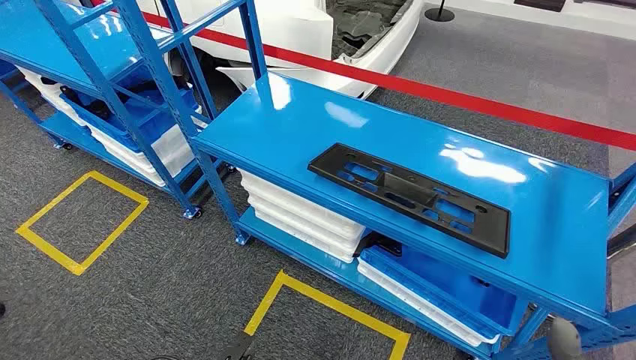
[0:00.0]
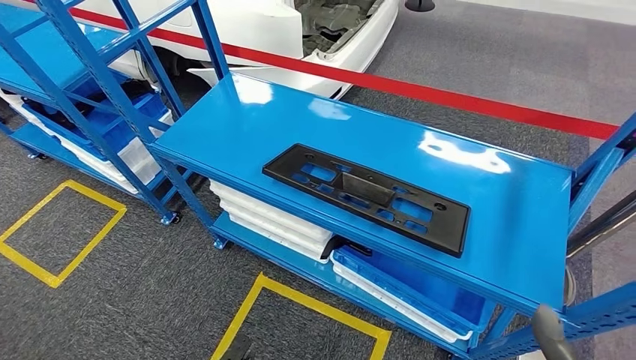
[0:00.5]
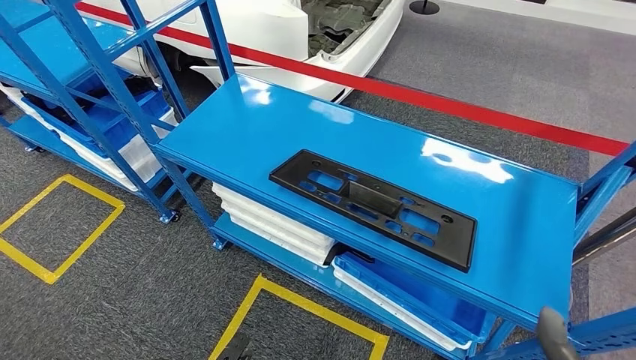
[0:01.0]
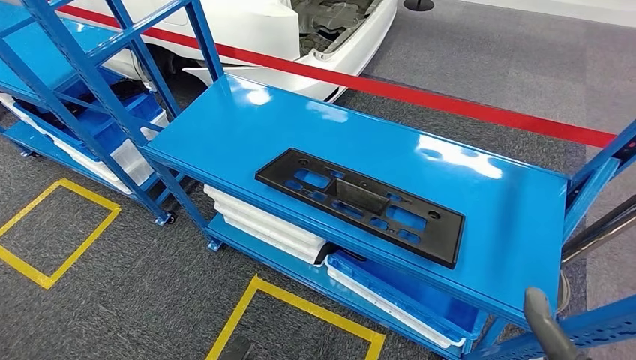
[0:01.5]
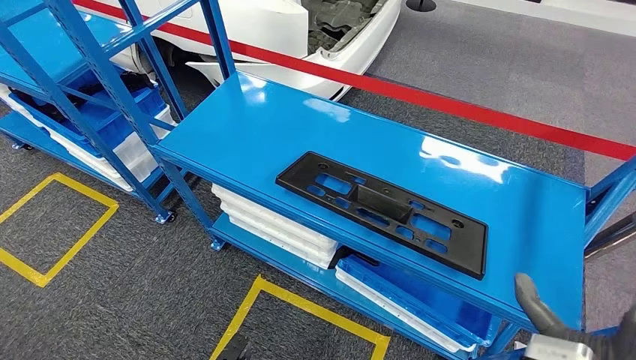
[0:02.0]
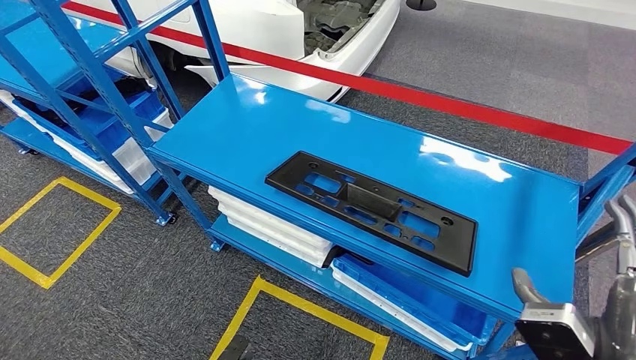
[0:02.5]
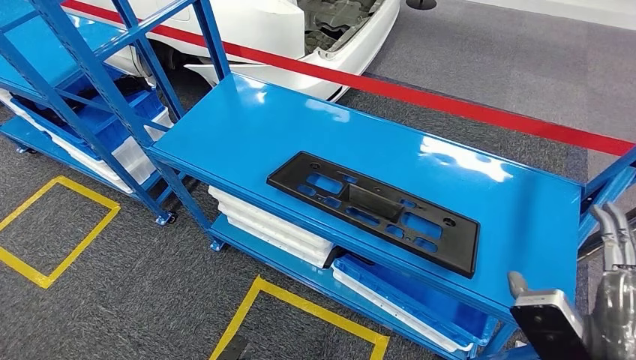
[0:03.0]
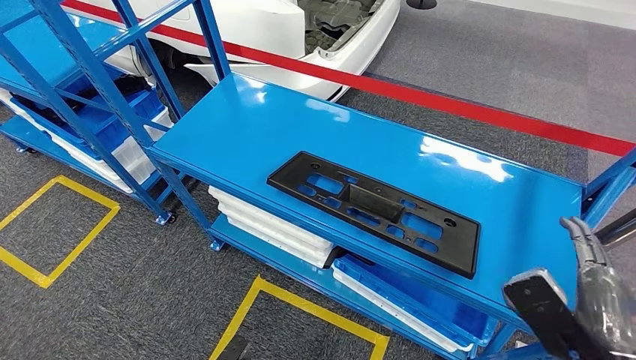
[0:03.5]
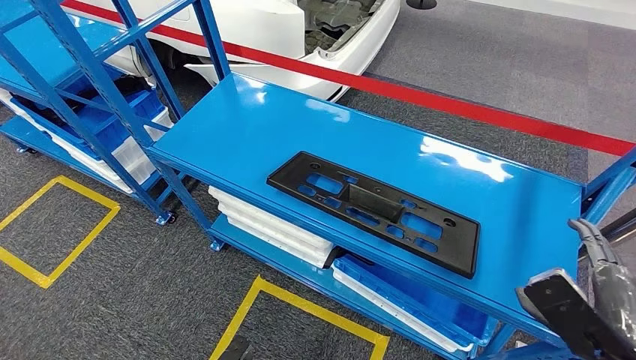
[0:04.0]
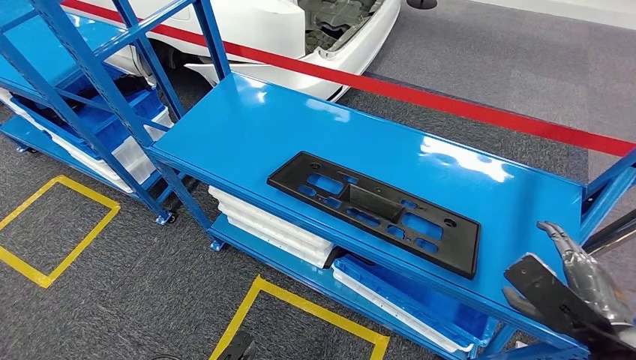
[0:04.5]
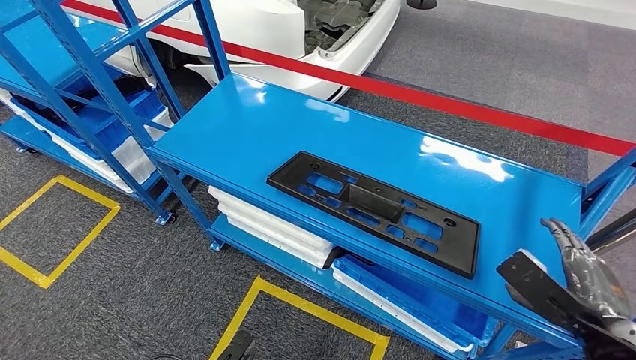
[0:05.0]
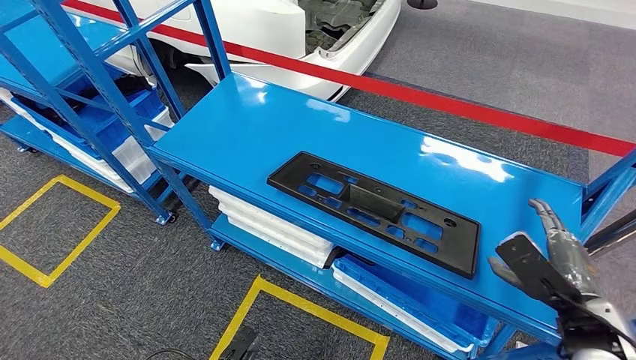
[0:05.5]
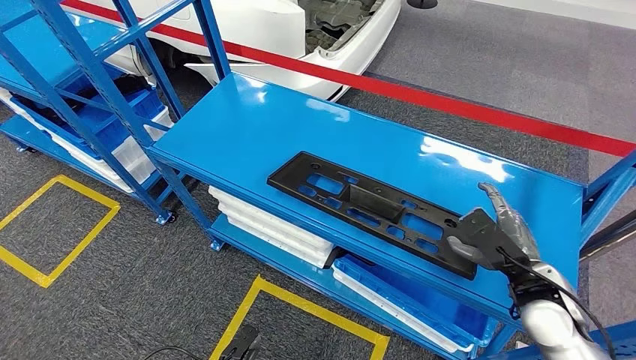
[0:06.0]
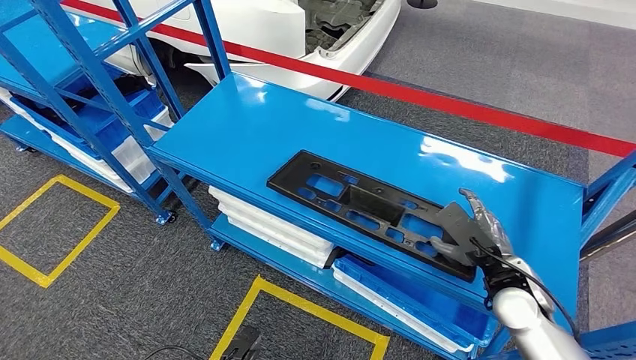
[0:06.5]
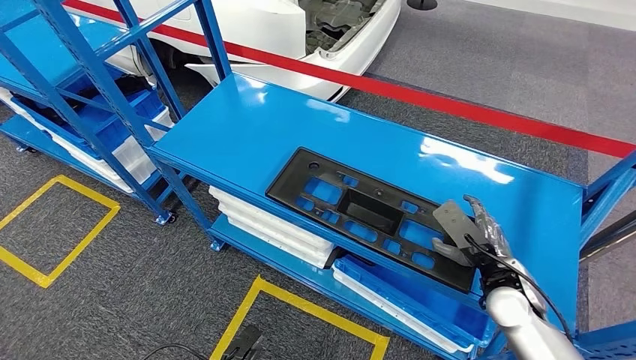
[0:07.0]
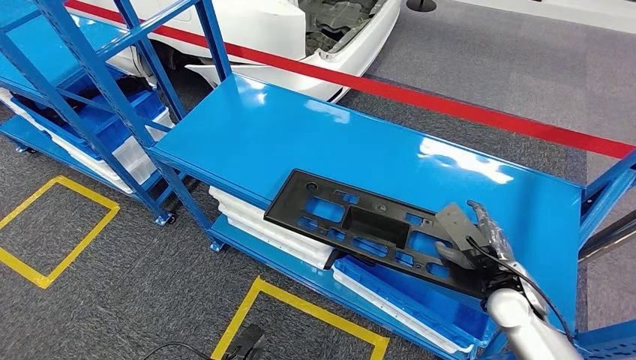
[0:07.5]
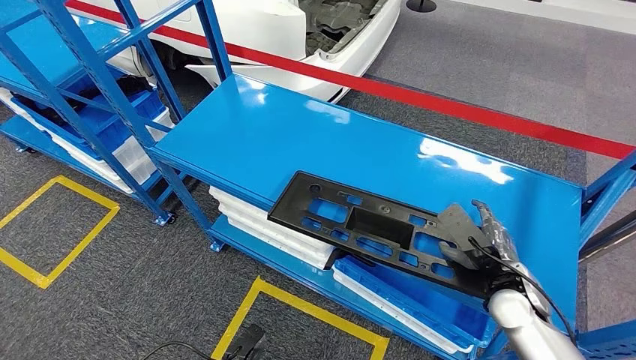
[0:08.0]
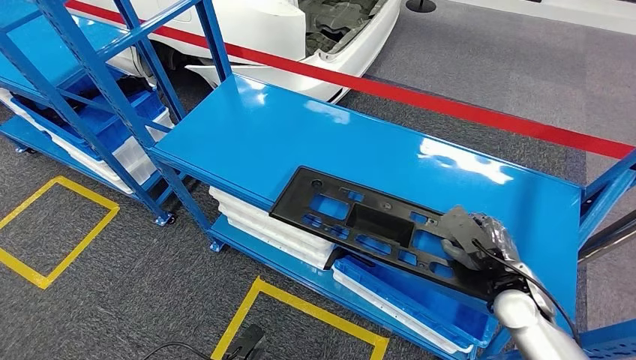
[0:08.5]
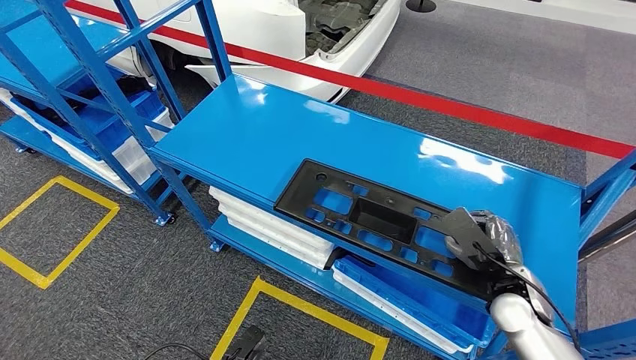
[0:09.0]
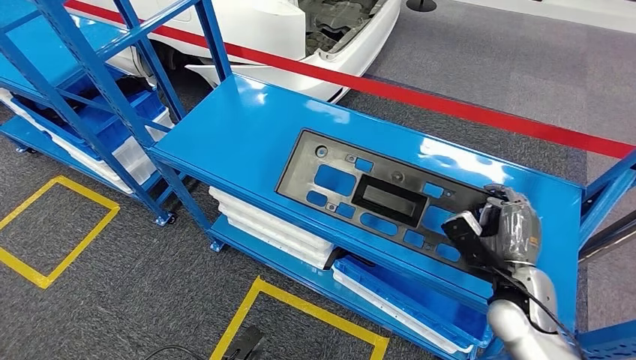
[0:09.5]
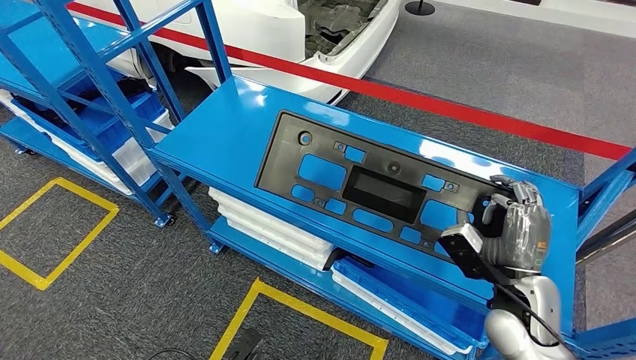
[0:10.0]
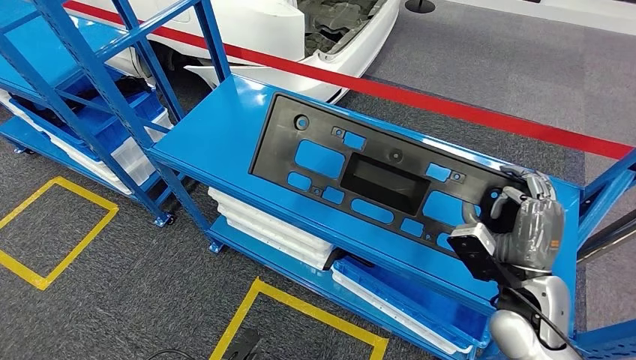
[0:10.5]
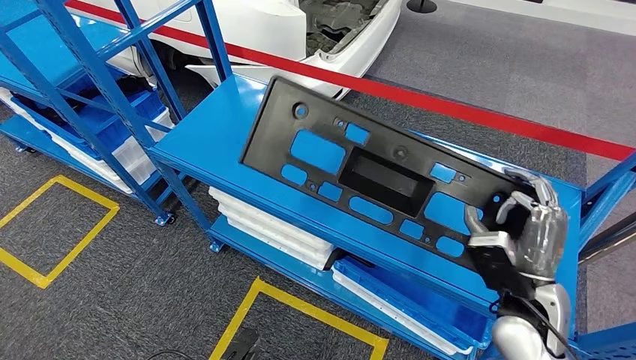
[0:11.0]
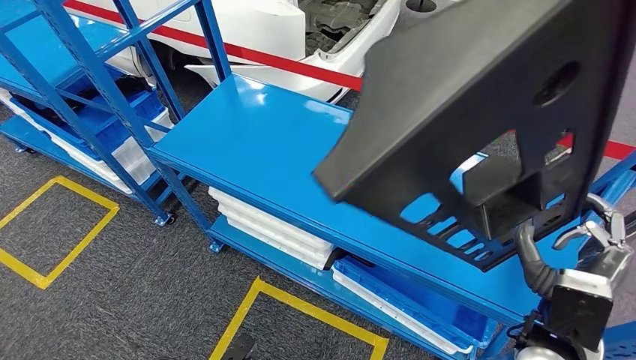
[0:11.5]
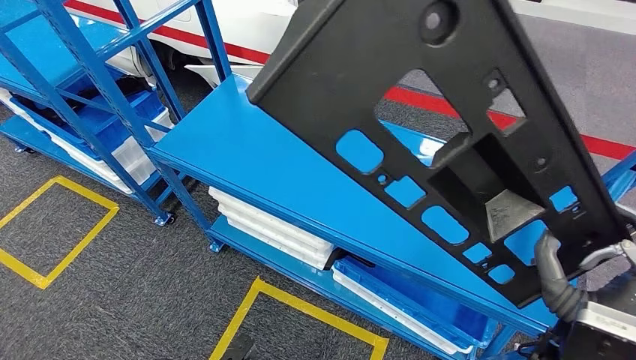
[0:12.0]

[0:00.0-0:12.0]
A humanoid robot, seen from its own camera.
0:02.0 to 0:04.0: The right hand shifts roughly 5 cm to the right.
0:04.0 to 0:06.0: The right hand travels forward and downward by approximately 15 cm.
0:06.0 to 0:08.0: The right hand changes place by roughly 5 cm.

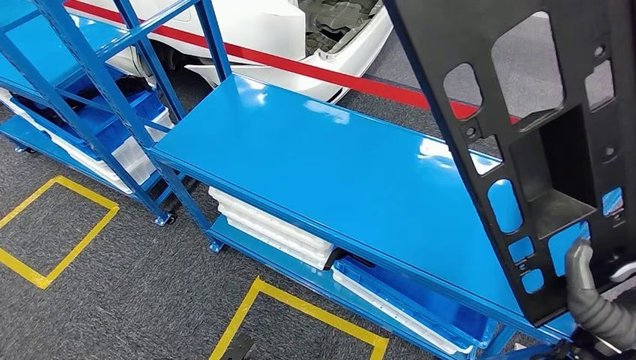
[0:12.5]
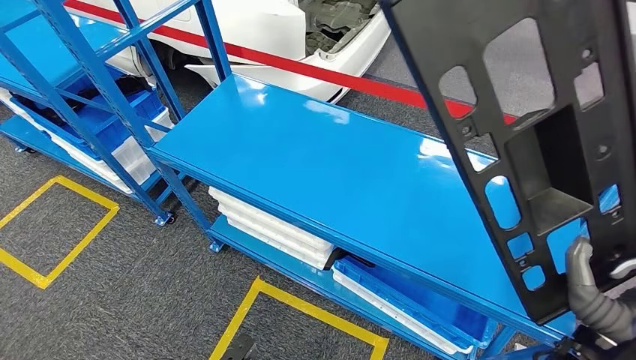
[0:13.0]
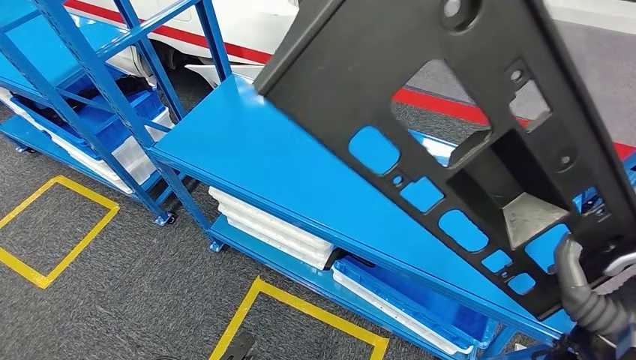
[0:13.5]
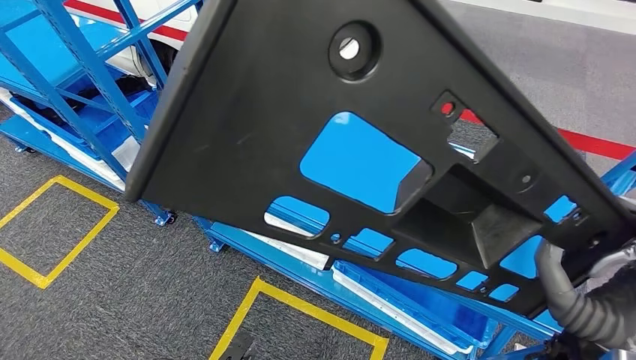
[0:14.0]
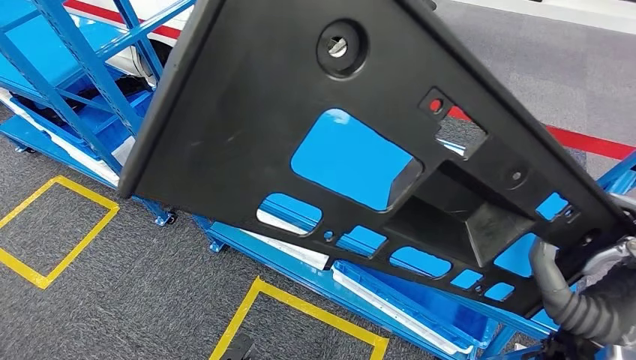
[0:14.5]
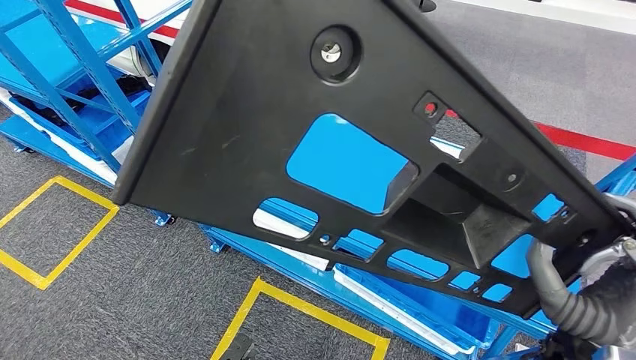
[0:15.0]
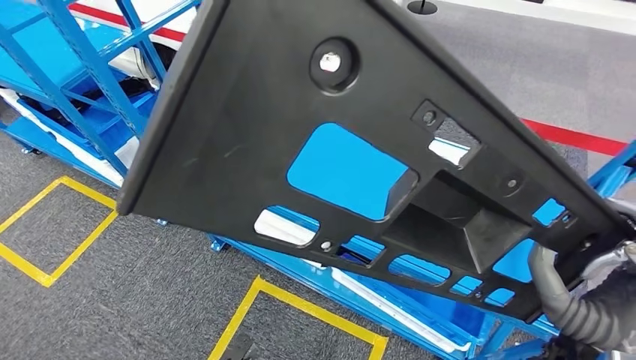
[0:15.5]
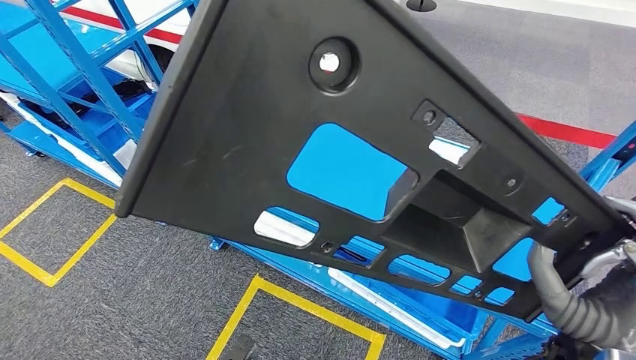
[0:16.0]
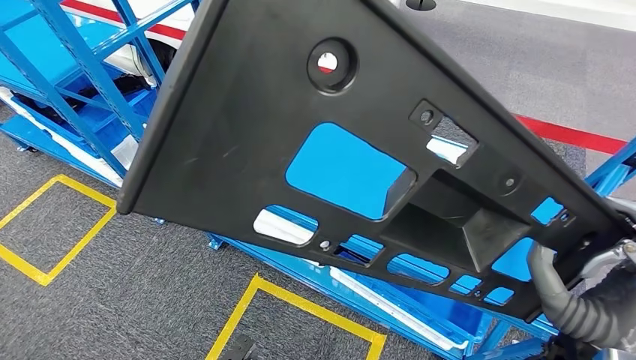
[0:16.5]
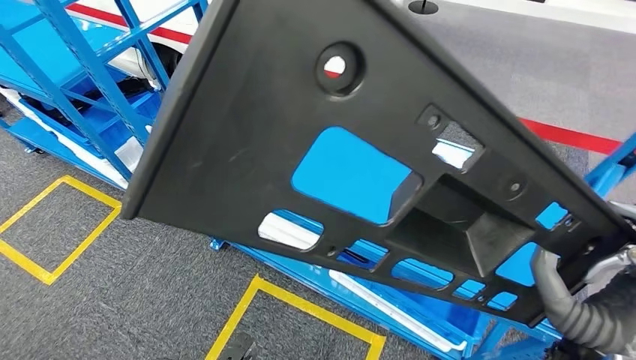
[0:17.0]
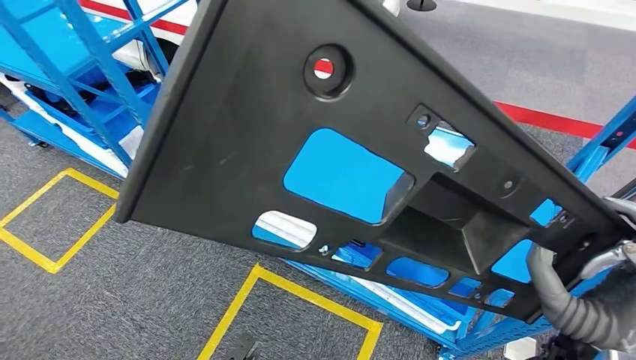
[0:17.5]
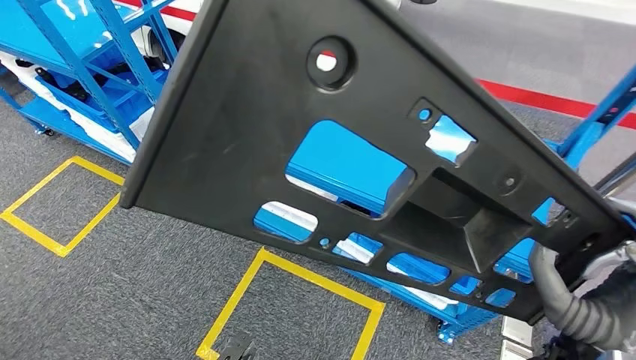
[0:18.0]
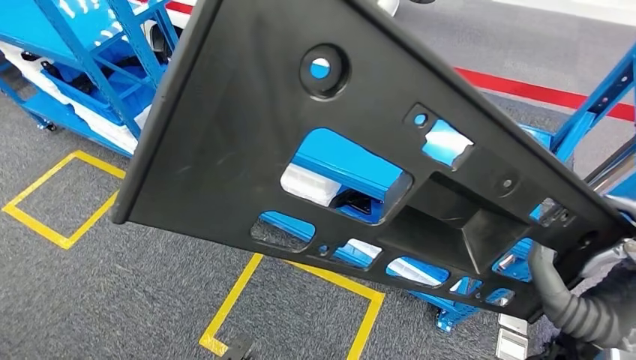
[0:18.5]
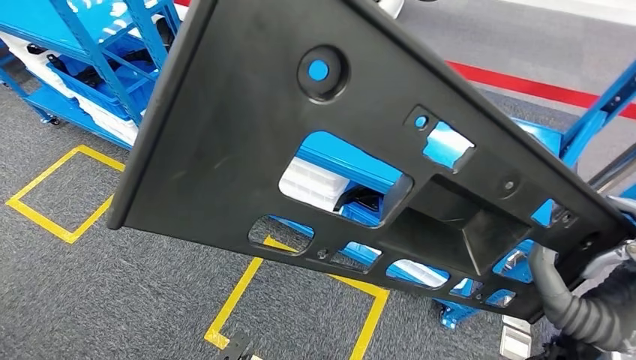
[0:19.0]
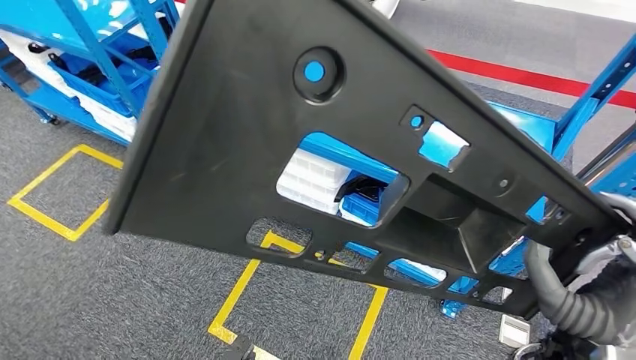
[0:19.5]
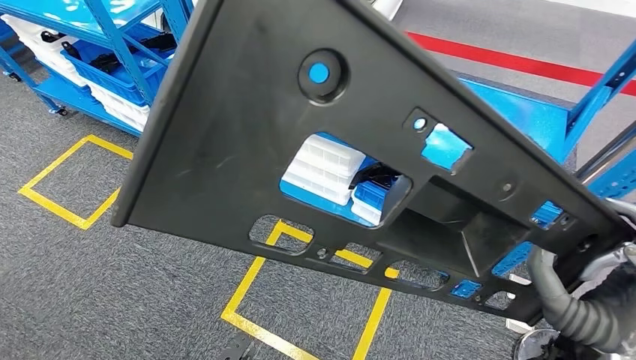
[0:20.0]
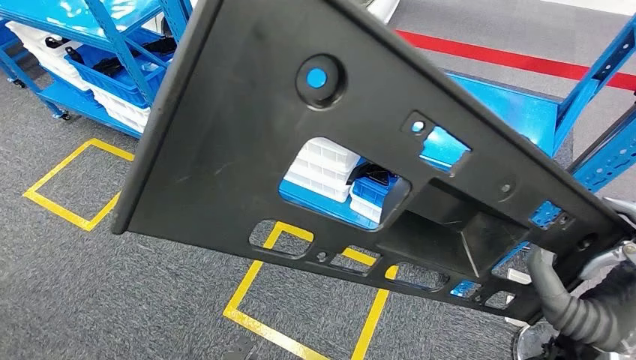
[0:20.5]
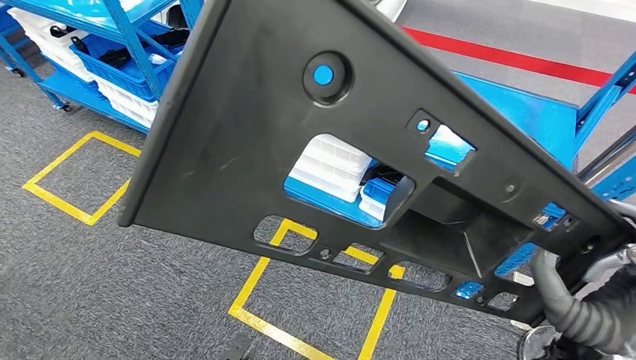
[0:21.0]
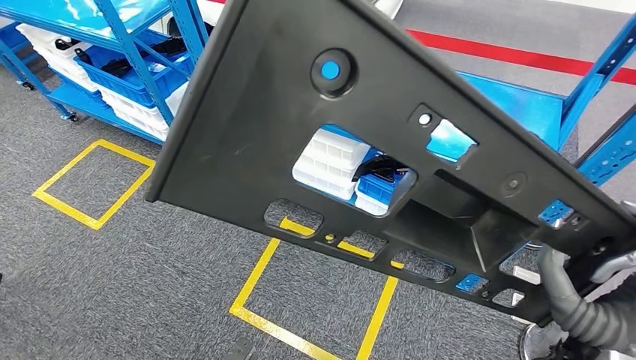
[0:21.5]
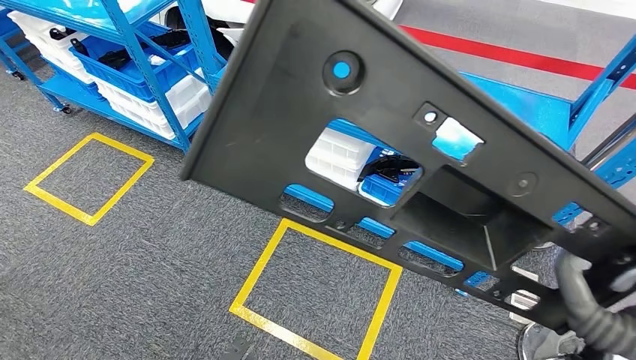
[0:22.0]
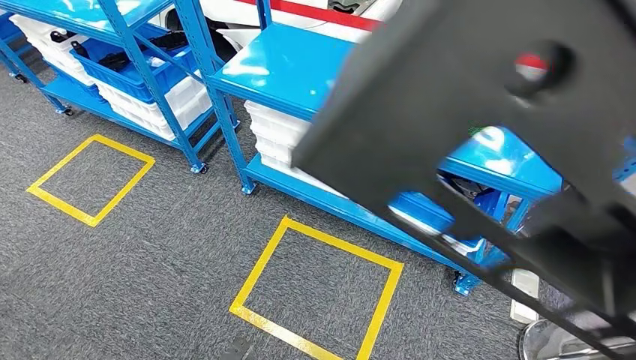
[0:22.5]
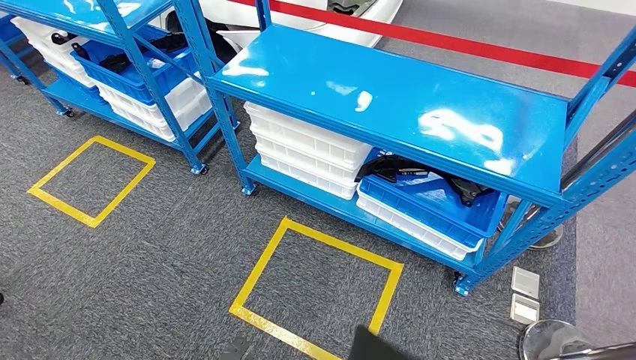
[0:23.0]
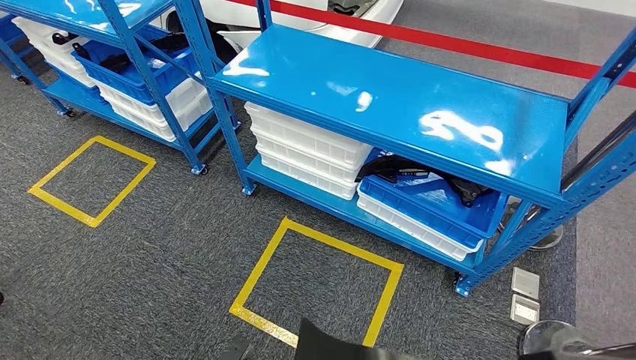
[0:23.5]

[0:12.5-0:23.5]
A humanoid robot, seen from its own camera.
Step, 0:12.5 to 0:20.0: Pick up the large material from the shelf.
